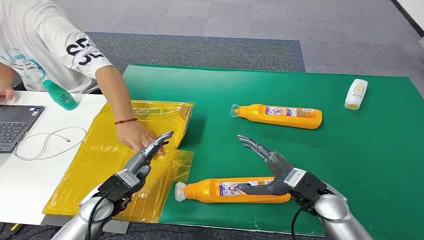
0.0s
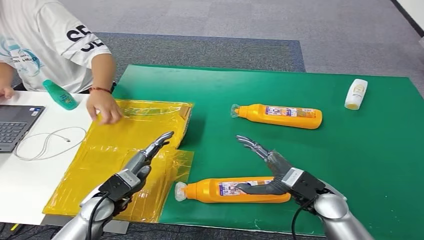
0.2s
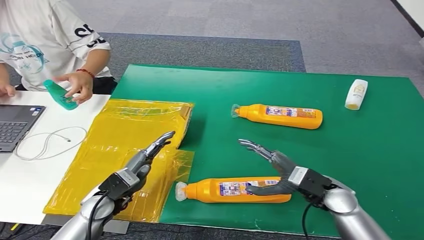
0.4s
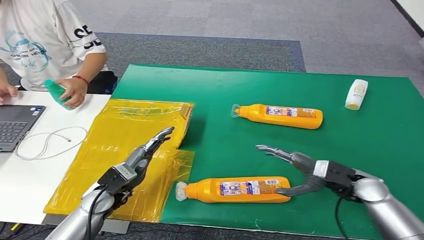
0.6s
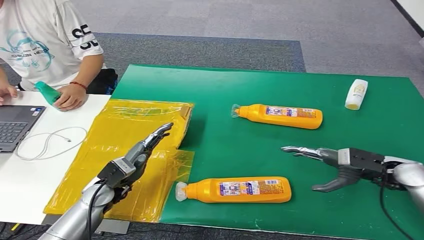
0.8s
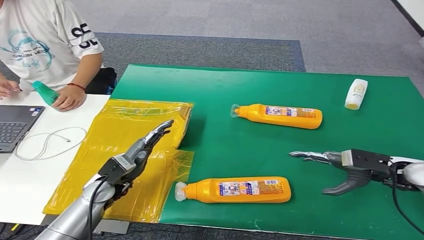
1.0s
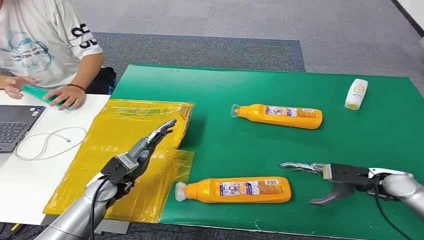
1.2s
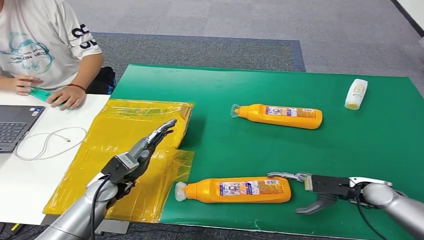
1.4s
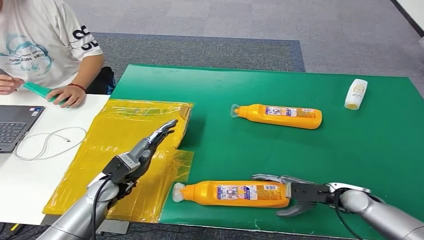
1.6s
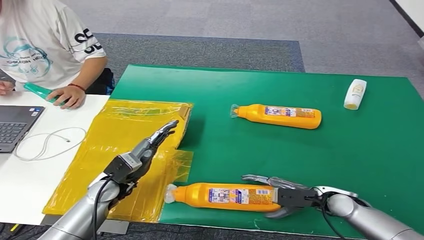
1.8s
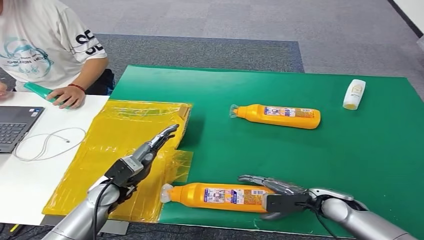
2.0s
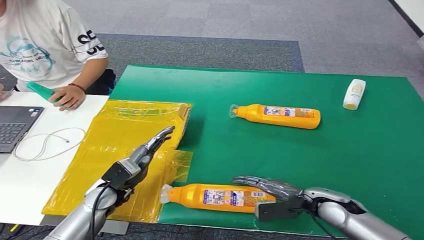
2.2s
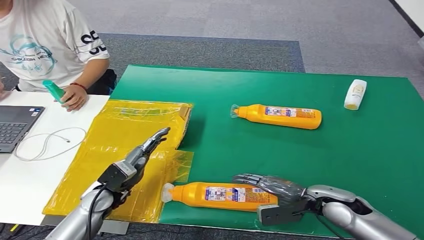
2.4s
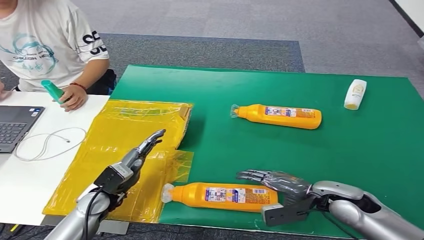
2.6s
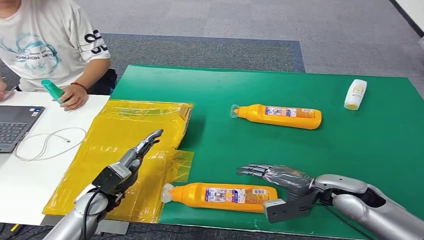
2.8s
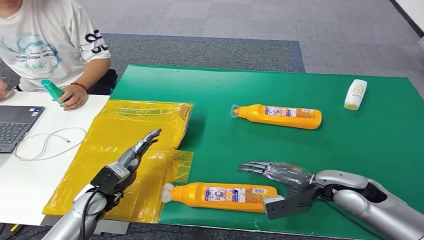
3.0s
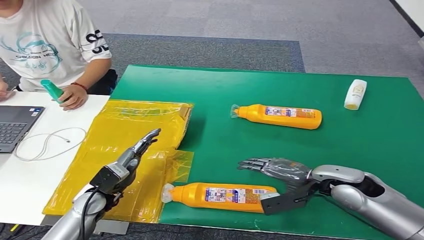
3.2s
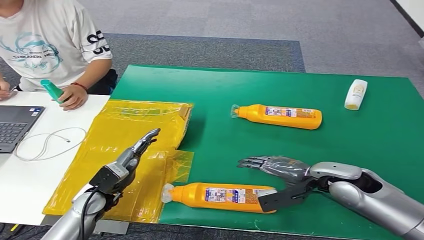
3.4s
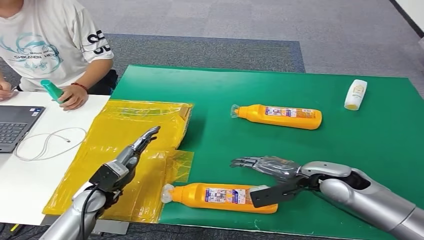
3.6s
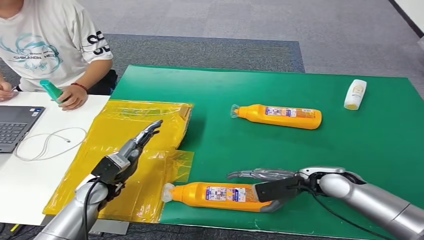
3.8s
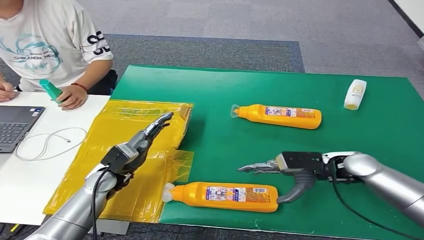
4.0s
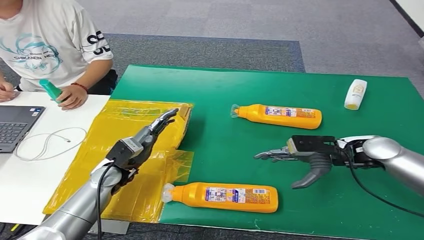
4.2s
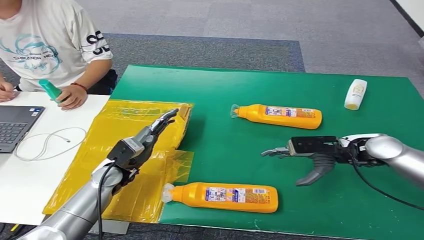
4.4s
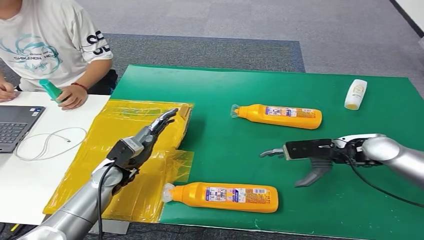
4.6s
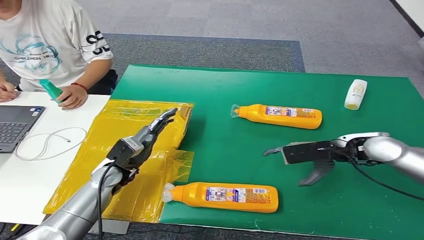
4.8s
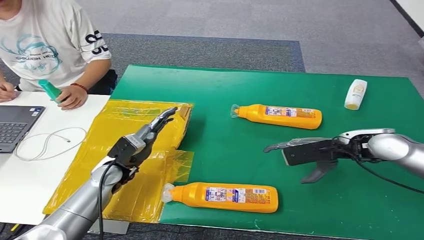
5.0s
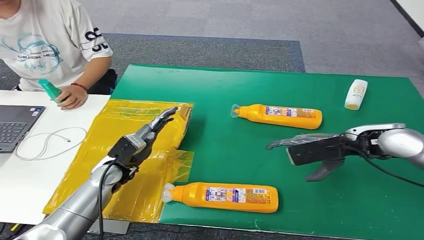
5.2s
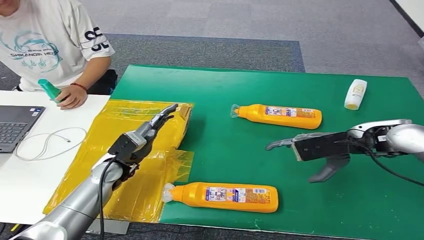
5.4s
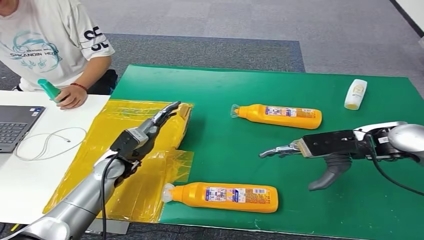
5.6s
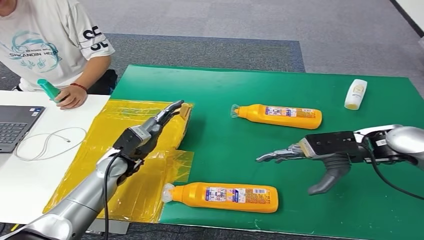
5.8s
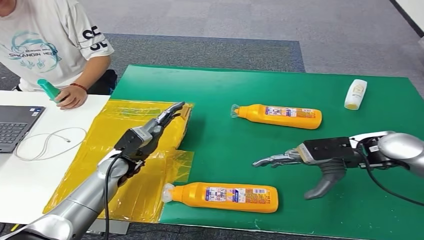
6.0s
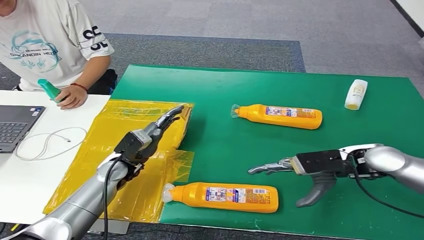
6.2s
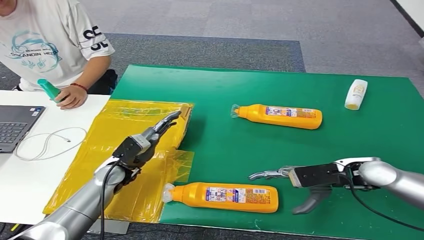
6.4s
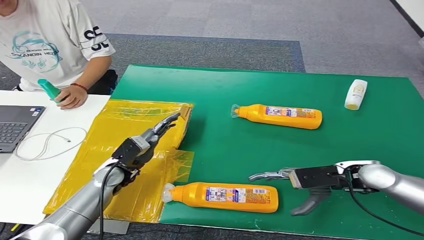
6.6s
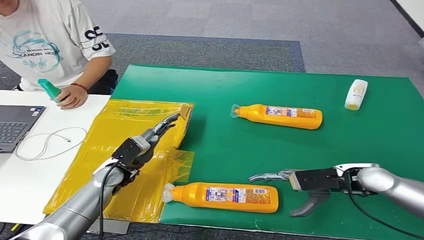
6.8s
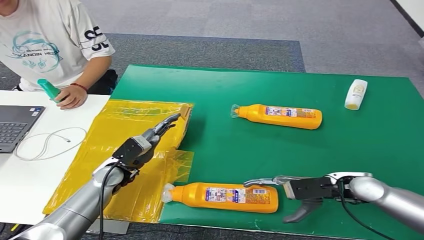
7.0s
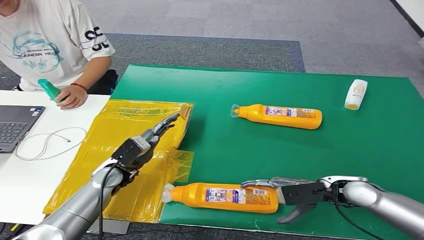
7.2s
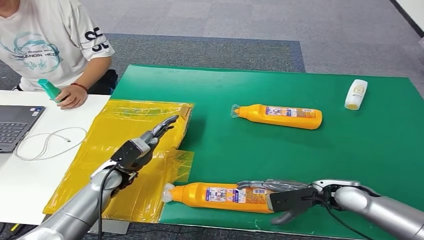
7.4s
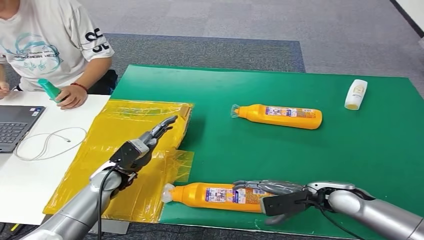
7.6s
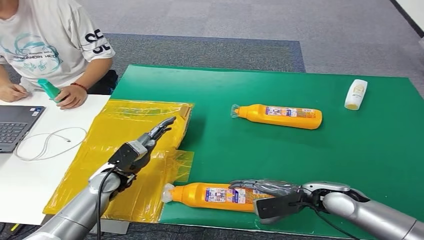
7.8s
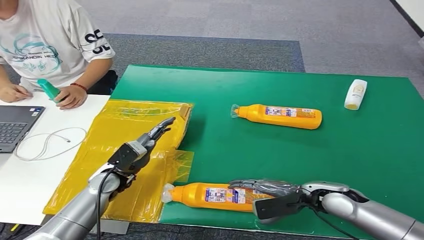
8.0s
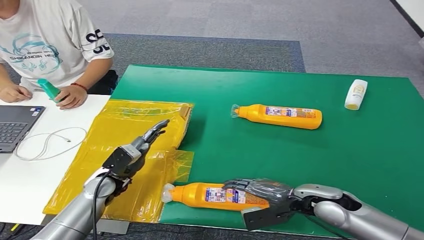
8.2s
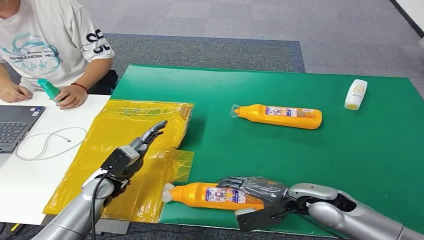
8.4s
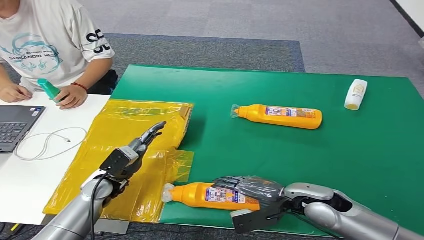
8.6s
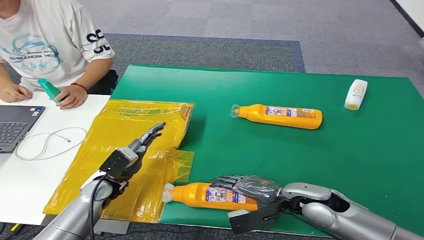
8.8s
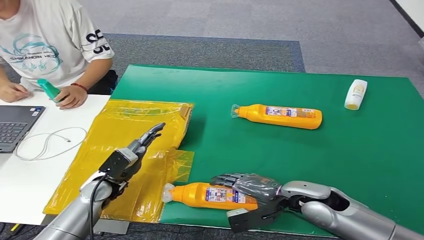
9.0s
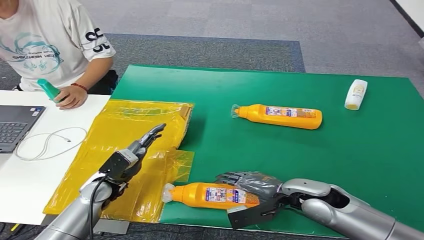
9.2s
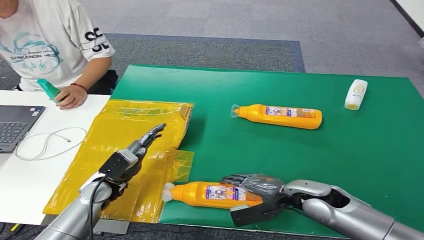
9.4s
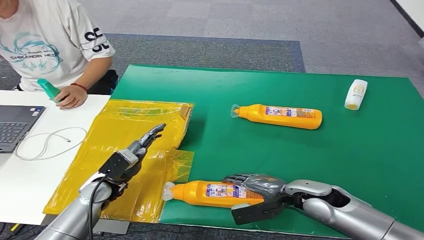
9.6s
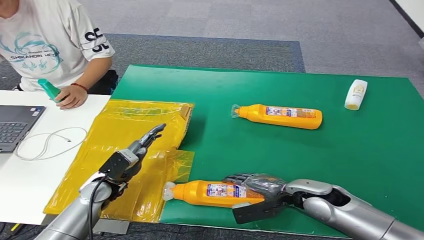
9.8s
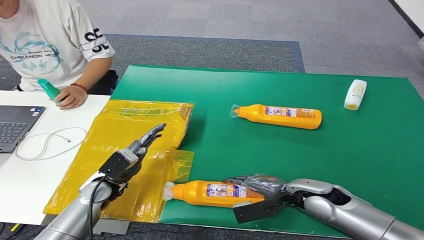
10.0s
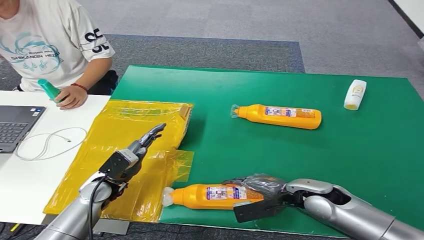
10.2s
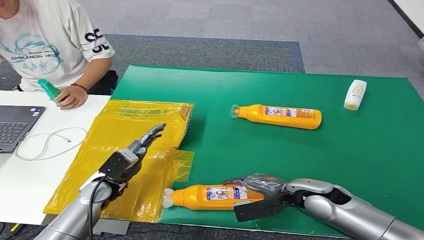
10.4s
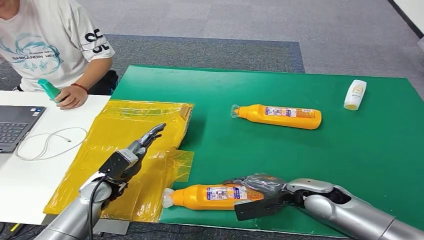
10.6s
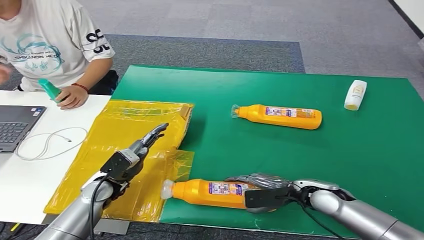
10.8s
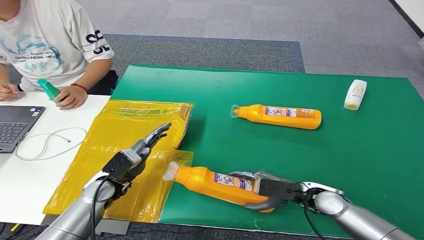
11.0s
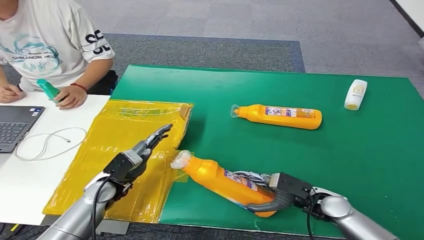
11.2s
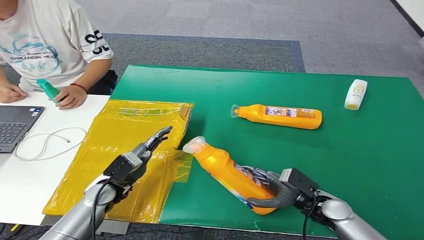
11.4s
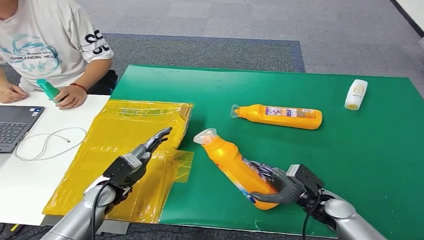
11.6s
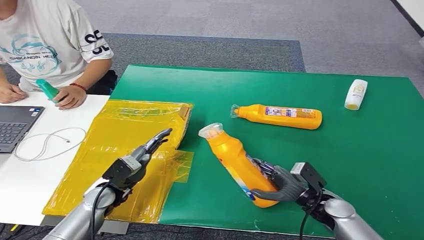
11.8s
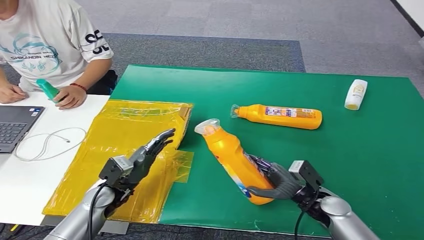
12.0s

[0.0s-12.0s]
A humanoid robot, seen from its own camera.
1.6s to 3.0s: The right hand heads upward, covering some 10 cm.
3.0s to 4.4s: The left hand goes roughly 5 cm forward. The right hand travels forward and upward by roughly 10 cm.
6.0s to 7.6s: The right hand heads downward and backward, covering approximately 15 cm.
7.6s to 9.0s: The right hand travels to the left by approximately 5 cm.
9.0s to 10.4s: The hands stay close to where they were, moving slightly.
10.4s to 12.0s: The right hand moves roughly 5 cm.

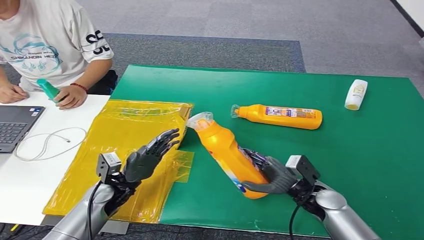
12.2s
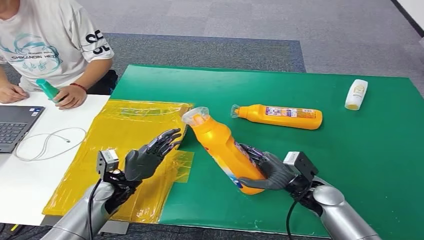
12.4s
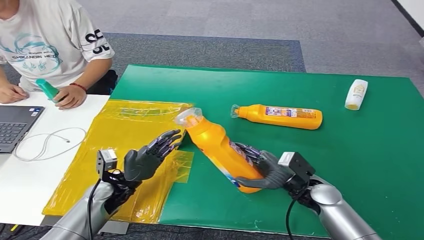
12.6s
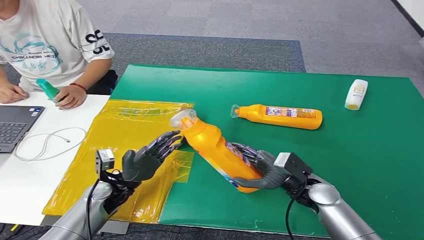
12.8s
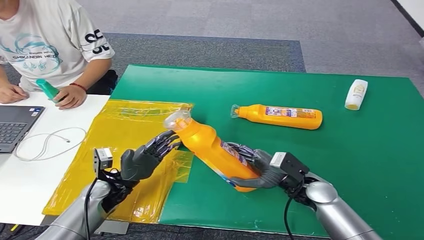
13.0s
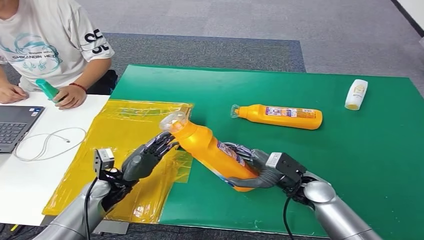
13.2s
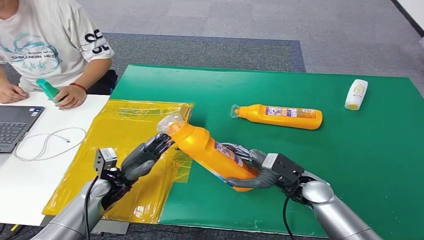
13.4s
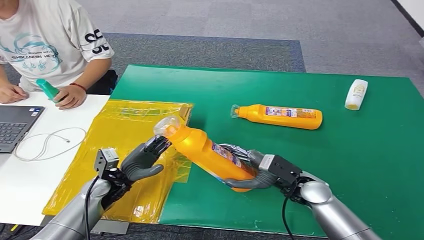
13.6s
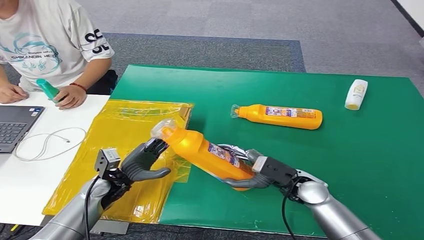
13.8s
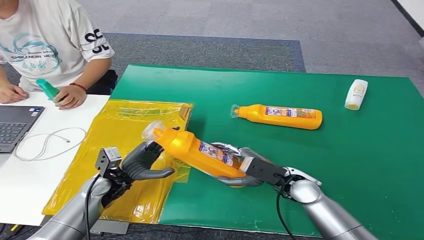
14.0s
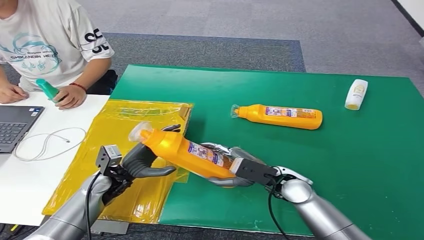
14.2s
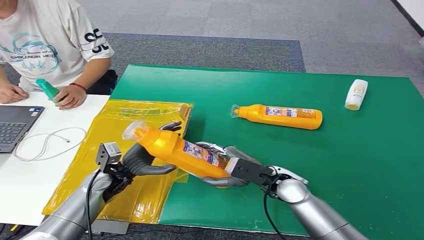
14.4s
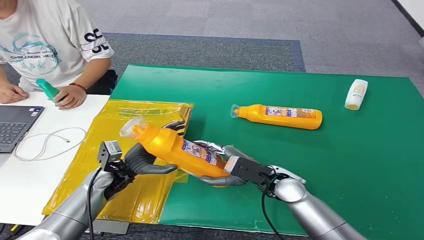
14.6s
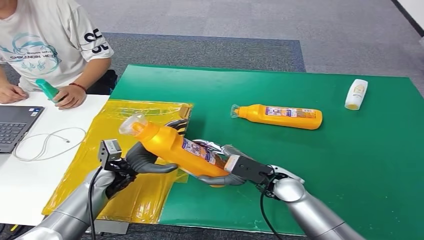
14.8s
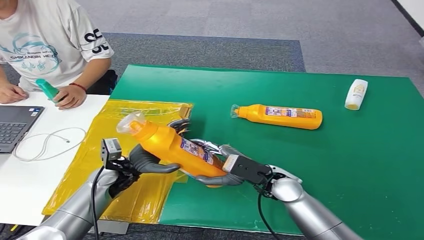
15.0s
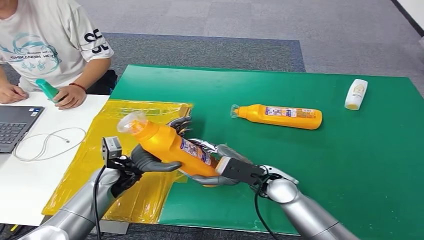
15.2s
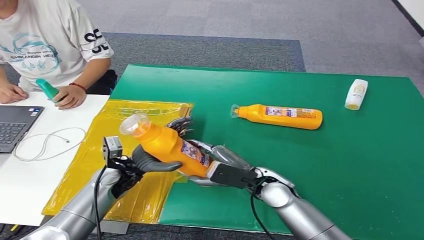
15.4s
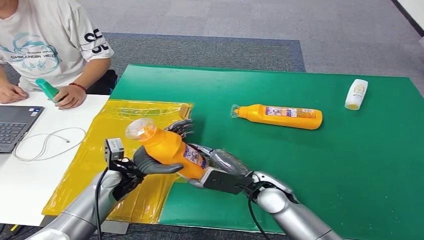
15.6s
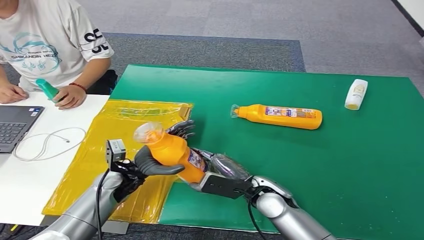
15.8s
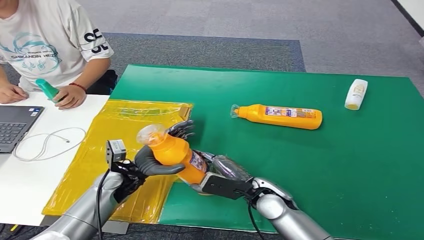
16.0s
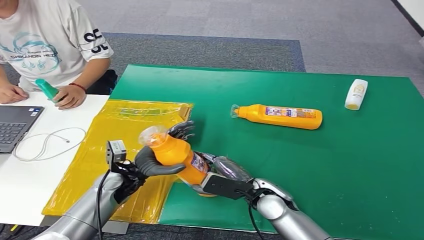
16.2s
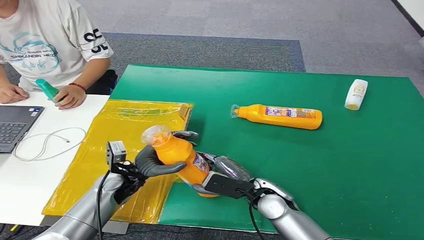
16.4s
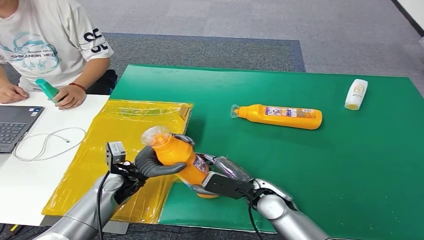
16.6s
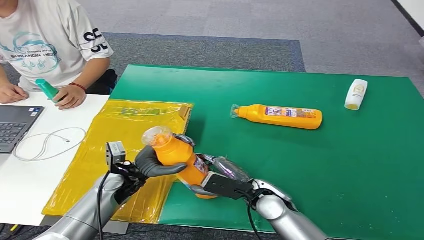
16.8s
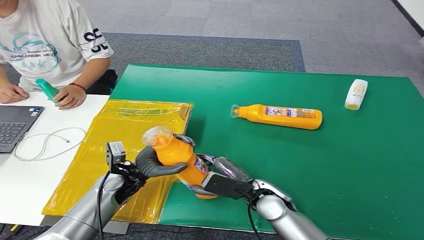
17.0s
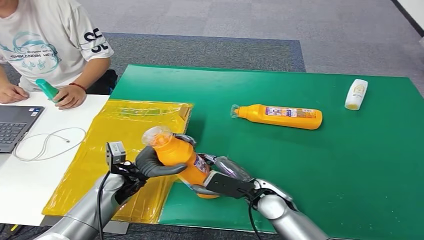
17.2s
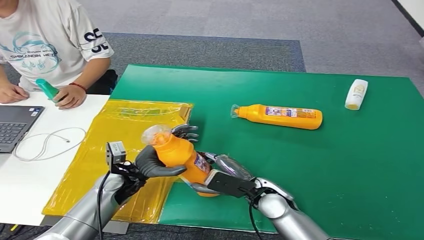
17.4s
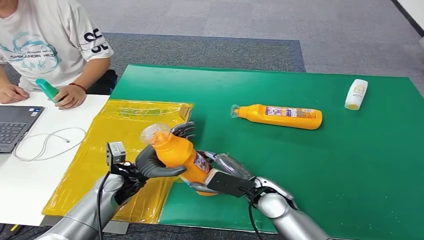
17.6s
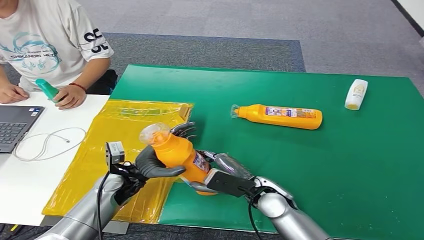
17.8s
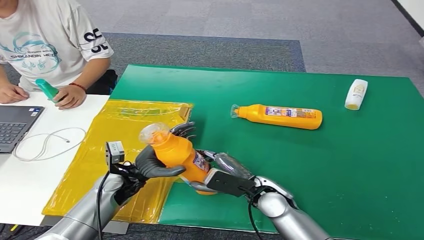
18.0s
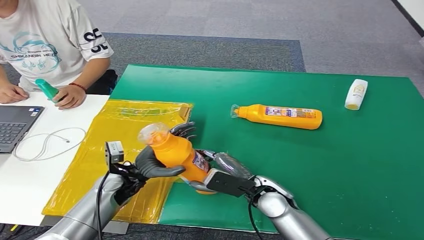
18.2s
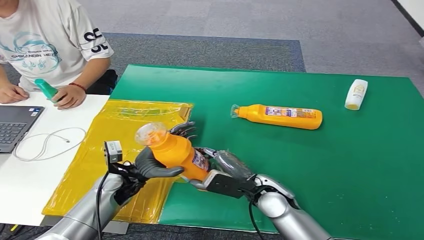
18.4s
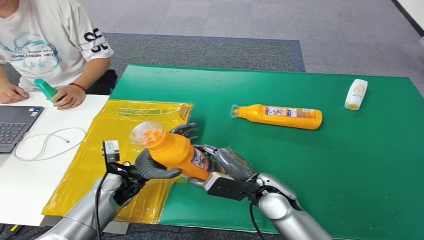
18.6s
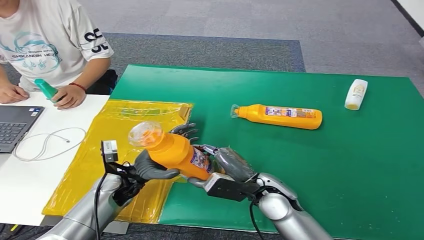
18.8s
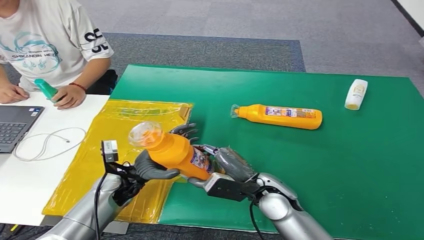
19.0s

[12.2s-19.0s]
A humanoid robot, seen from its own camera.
12.2s to 13.6s: The right hand ends up approximately 5 cm from where it was.
13.6s to 15.0s: The right hand moves to the left, about 5 cm.
15.0s to 16.2s: The hands make only small movements.
16.2s to 17.6s: Neither hand changes place.
17.6s to 19.0s: The hands move only a little.
